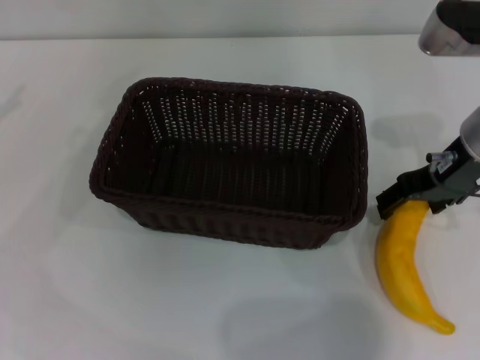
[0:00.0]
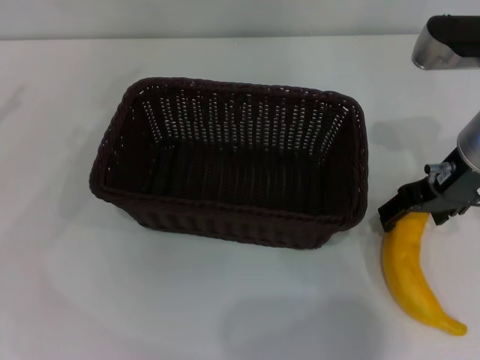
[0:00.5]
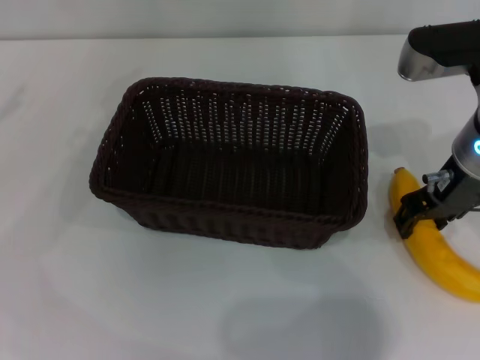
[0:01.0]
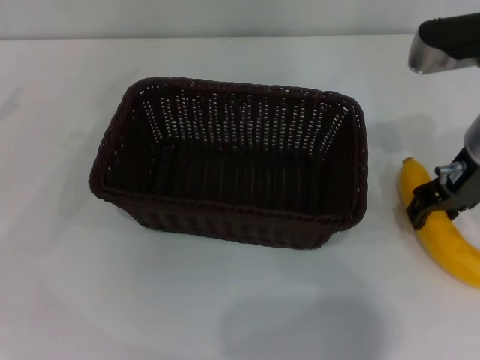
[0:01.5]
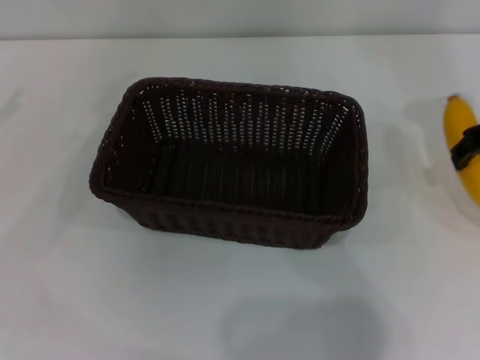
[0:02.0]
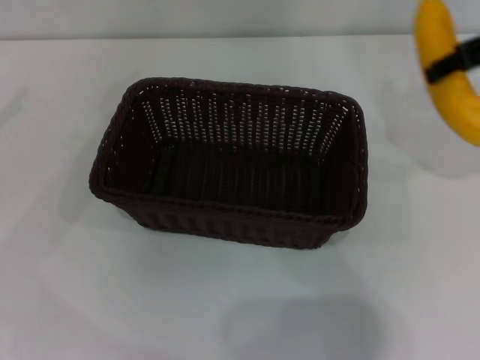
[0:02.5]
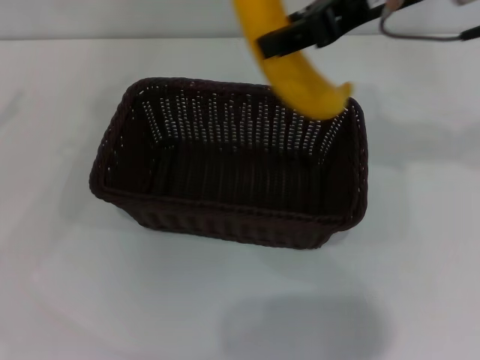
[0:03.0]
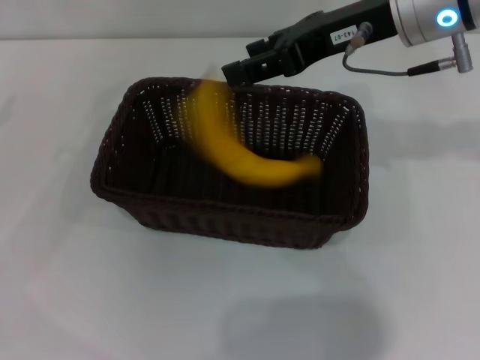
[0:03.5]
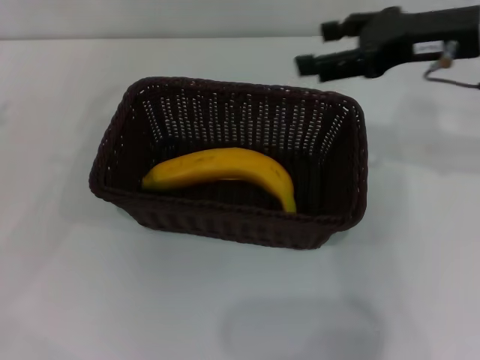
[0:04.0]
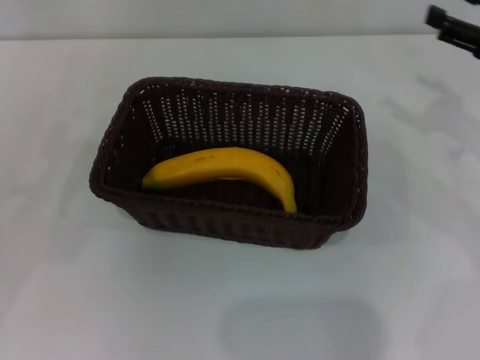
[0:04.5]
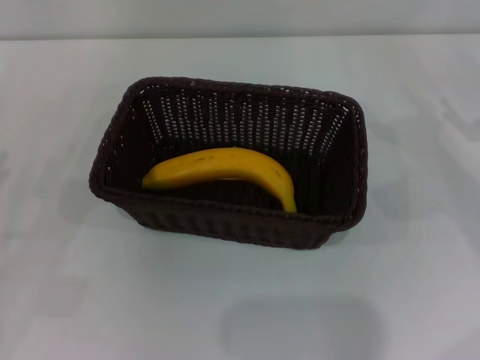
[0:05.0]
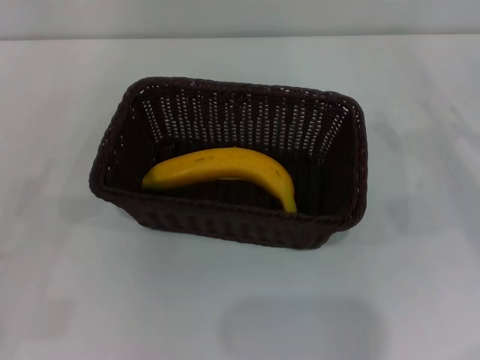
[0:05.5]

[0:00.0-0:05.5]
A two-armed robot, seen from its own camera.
Step, 0:00.0 to 0:02.0: Pick up the banana with the right gripper.
Step, 0:02.5 to 0:03.5: Place the banana into the dark basket with the right gripper.
0:00.0 to 0:02.0: The right gripper shifts by about 5 cm, and closes its fingers.
0:02.0 to 0:03.5: The right gripper is displaced to the left by some 10 cm.
0:03.5 to 0:05.5: The right gripper travels to the right and downward by about 30 cm, and opens up. The left gripper moves downward, backward and to the right, roughly 20 cm.
